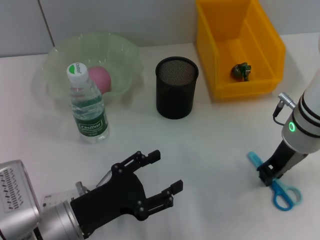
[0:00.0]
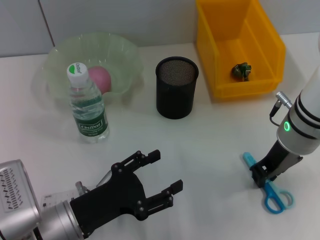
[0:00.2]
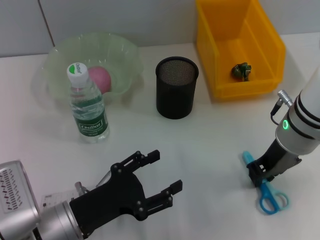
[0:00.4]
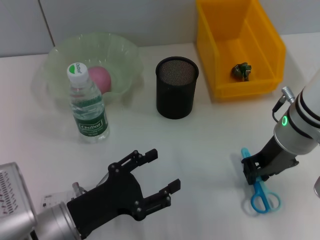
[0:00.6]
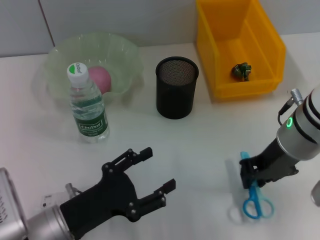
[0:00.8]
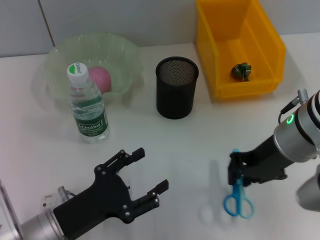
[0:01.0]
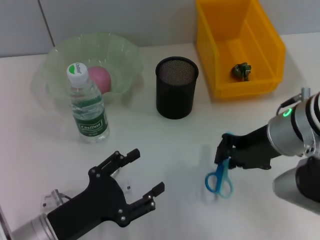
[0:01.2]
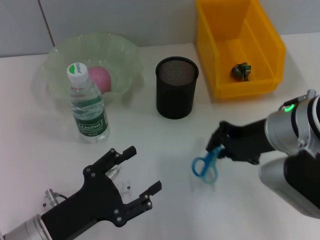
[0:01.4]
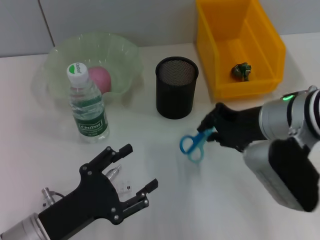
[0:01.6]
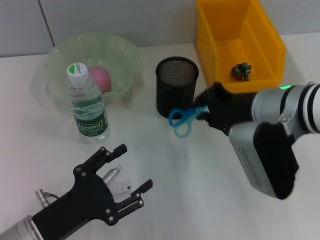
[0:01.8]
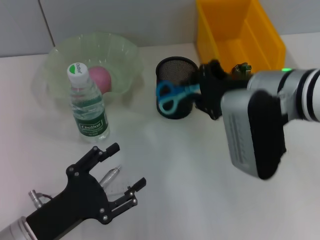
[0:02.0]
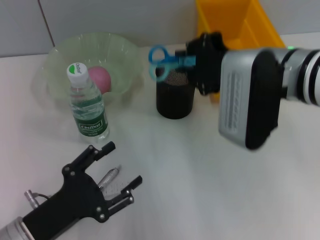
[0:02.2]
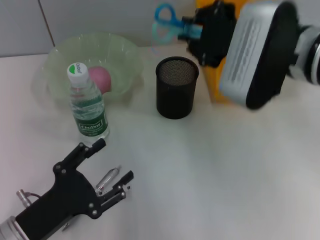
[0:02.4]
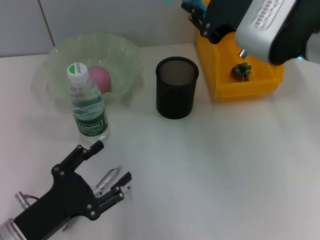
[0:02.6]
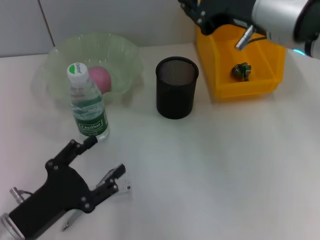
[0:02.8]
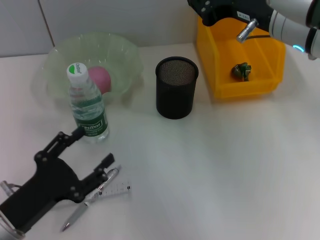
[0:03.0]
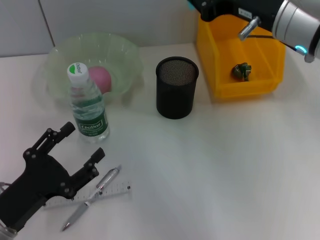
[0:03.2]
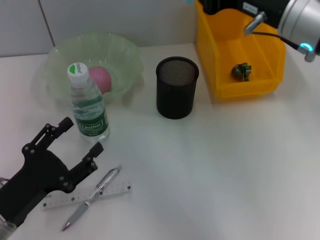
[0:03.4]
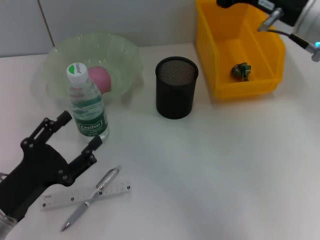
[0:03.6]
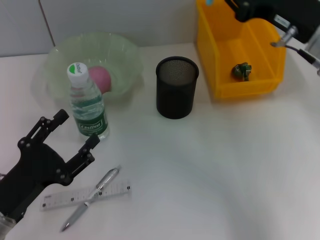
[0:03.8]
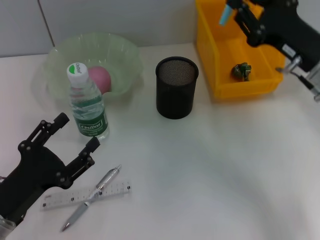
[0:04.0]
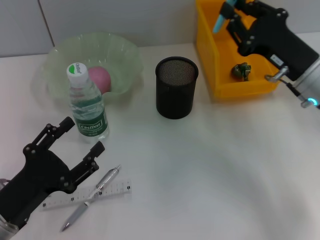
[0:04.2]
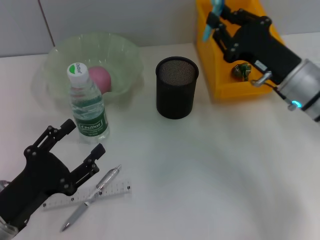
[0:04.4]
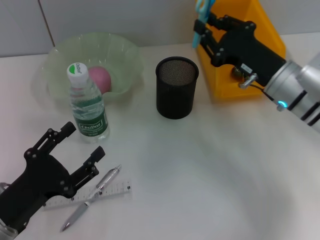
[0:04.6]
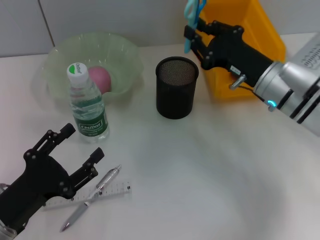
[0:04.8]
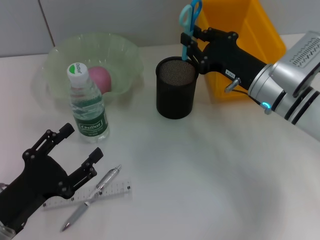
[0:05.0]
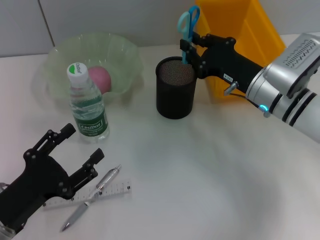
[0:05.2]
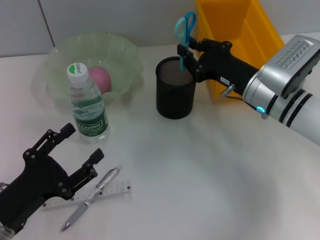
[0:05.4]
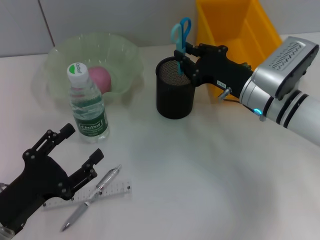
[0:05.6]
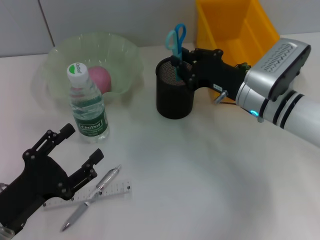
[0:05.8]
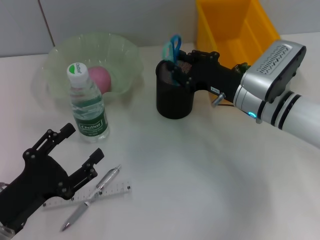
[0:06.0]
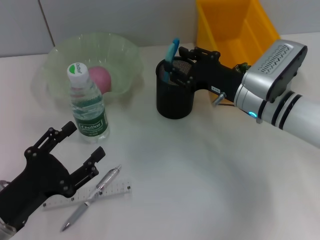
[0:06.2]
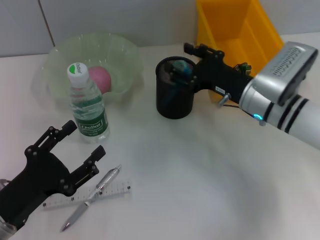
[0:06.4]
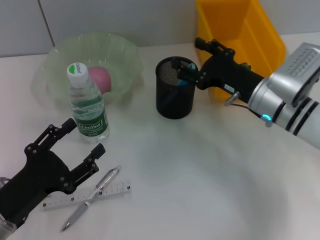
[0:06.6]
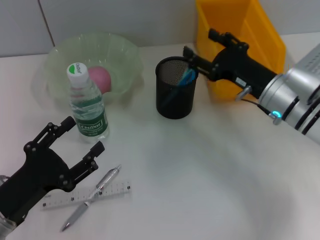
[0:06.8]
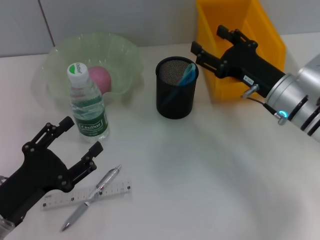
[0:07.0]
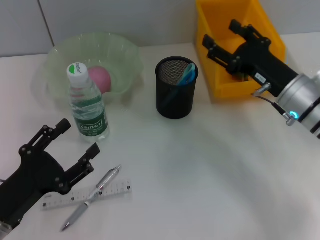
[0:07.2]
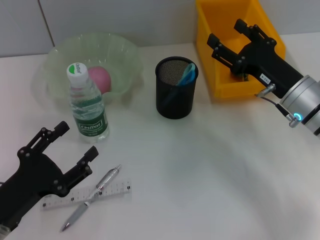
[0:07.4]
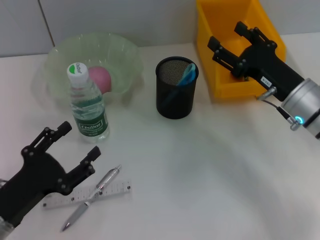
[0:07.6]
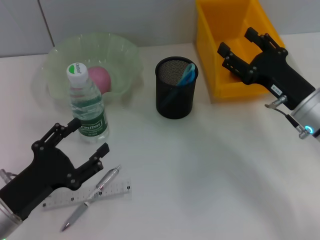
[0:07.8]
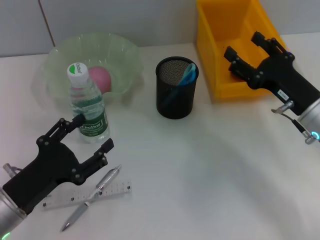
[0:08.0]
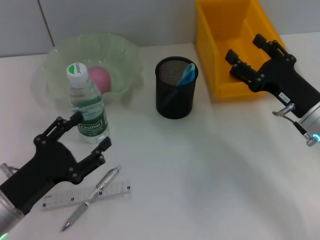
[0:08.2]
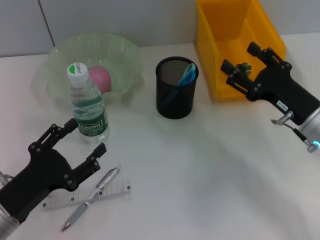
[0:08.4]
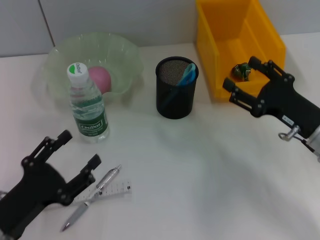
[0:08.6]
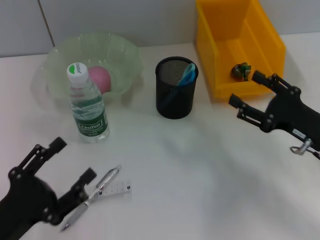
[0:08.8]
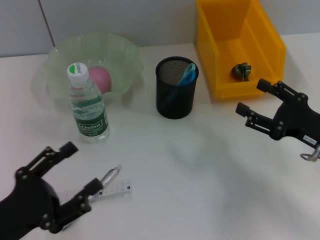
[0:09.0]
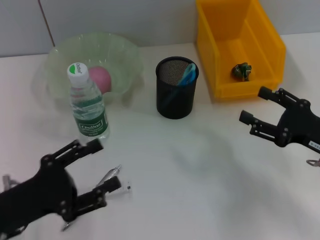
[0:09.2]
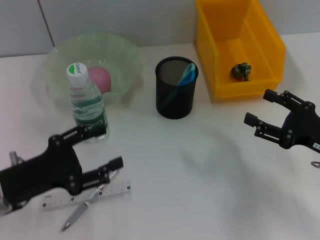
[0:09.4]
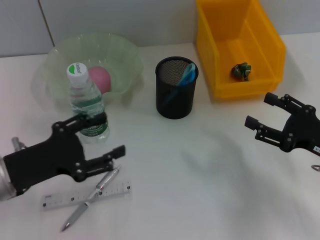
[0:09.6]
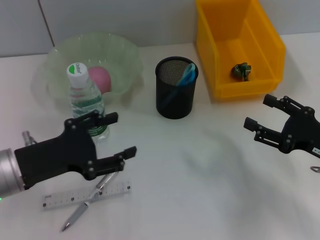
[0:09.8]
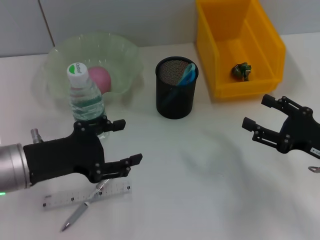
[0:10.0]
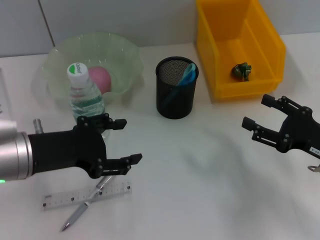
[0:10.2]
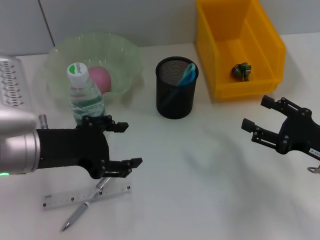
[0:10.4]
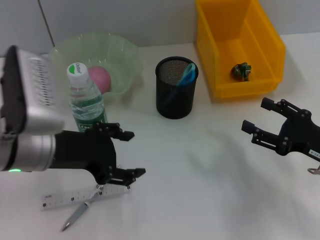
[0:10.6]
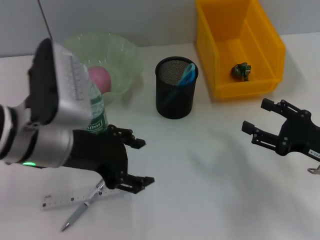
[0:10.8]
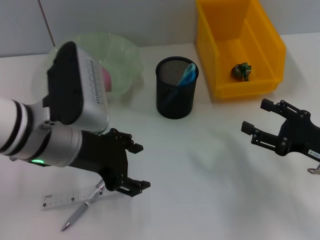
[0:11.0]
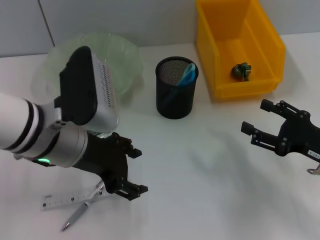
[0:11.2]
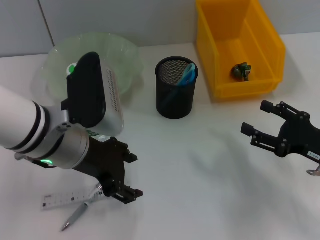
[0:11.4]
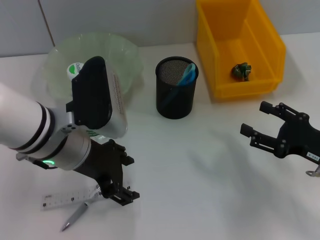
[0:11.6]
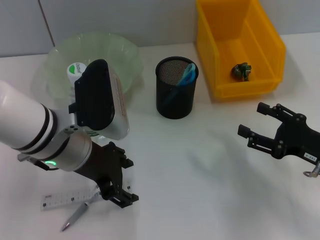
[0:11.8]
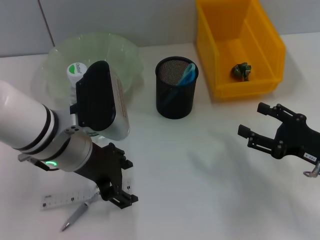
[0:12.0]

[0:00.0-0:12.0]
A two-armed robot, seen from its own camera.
Step, 0:00.0 to 0:06.6: Place the blue scissors into the pen holder with the right hand.
0:01.6 to 0:03.0: The right gripper goes approximately 10 cm upward.
0:03.0 to 0:04.4: The right gripper moves downward and to the right, about 15 cm.
0:04.4 to 0:06.0: The right gripper ends up some 5 cm from where it was.
0:06.0 to 0:07.6: The right gripper travels to the right by roughly 5 cm, and opens up.
0:07.6 to 0:09.0: The right gripper heads backward and to the right, covering about 10 cm.
0:09.0 to 0:10.4: The left gripper shifts approximately 15 cm forward, upward and to the right.
0:10.4 to 0:12.0: The left gripper moves to the right, some 5 cm.

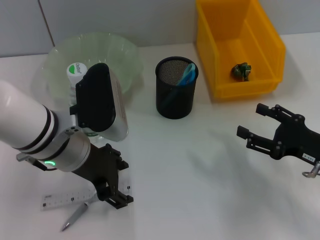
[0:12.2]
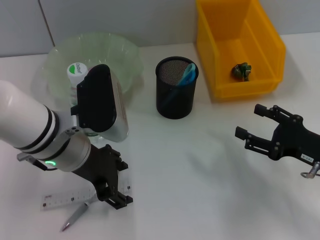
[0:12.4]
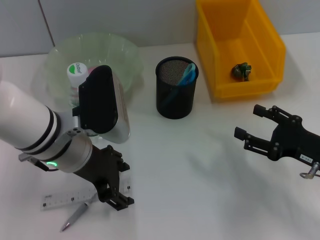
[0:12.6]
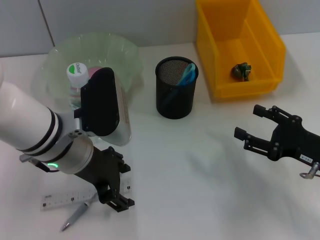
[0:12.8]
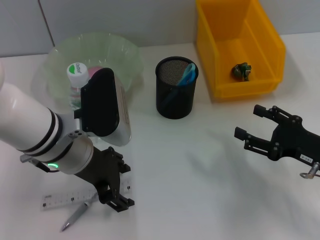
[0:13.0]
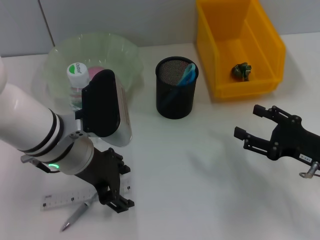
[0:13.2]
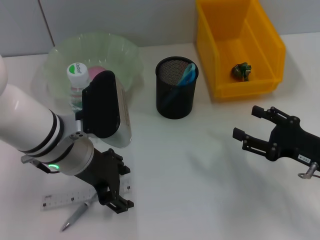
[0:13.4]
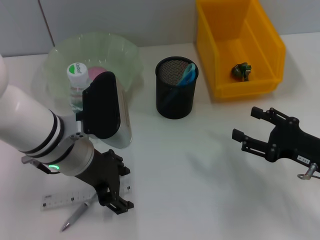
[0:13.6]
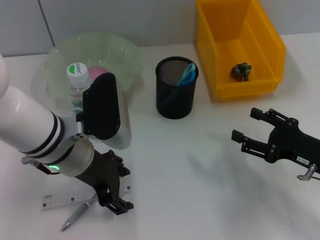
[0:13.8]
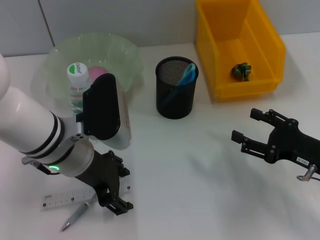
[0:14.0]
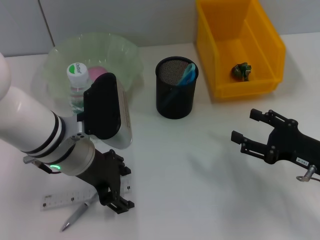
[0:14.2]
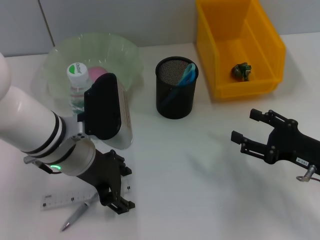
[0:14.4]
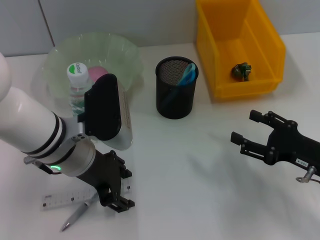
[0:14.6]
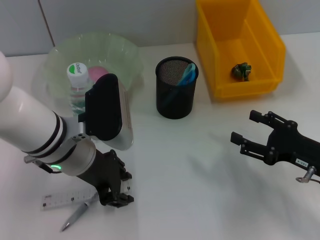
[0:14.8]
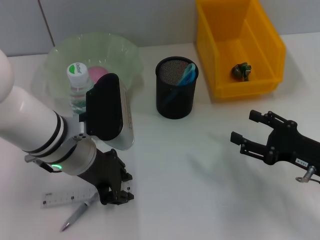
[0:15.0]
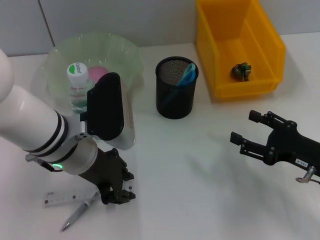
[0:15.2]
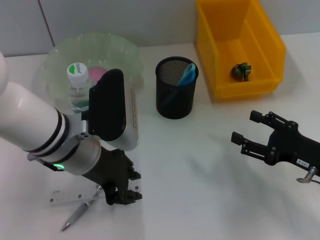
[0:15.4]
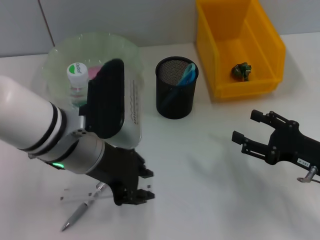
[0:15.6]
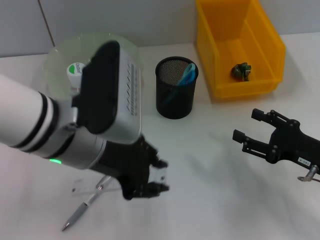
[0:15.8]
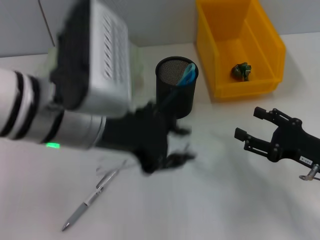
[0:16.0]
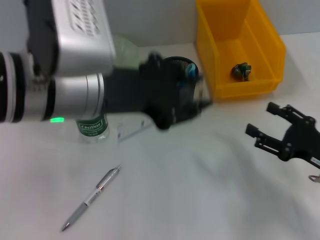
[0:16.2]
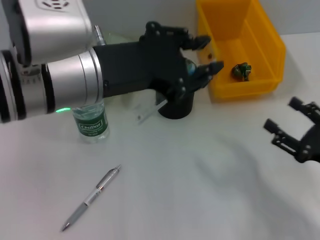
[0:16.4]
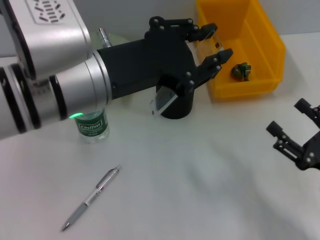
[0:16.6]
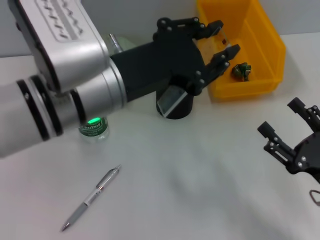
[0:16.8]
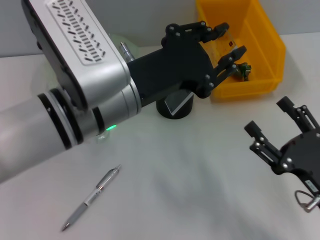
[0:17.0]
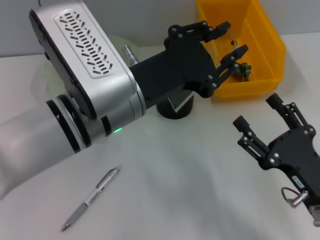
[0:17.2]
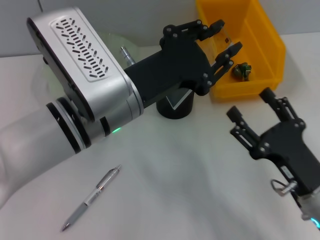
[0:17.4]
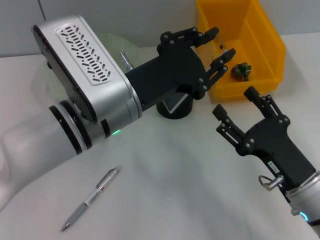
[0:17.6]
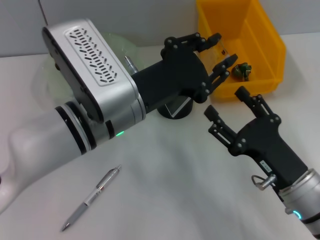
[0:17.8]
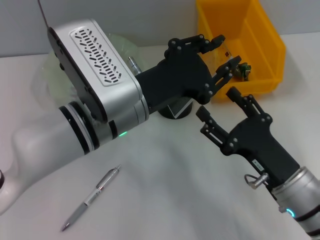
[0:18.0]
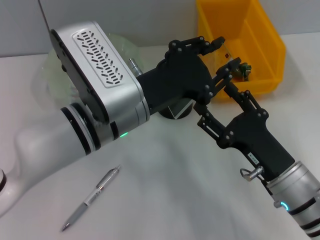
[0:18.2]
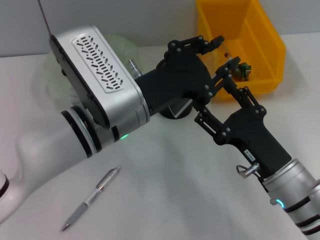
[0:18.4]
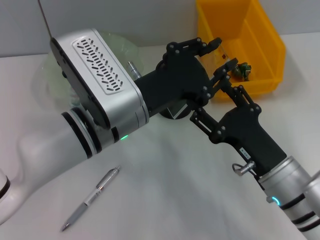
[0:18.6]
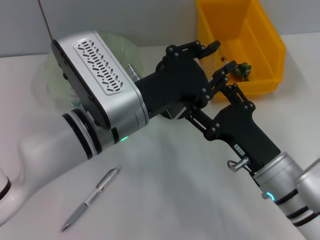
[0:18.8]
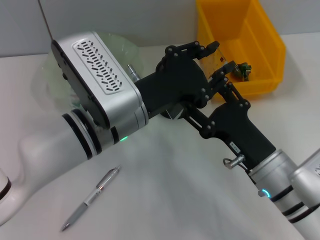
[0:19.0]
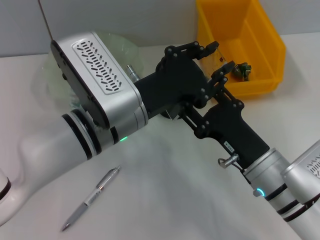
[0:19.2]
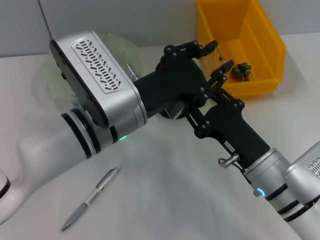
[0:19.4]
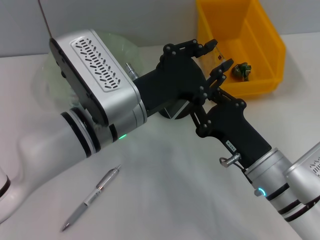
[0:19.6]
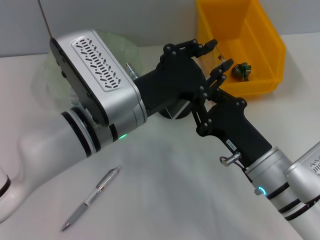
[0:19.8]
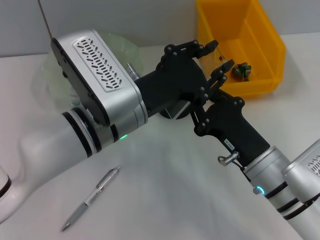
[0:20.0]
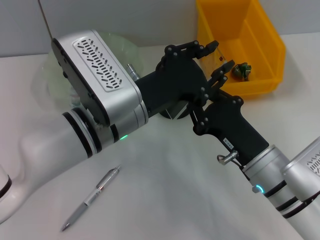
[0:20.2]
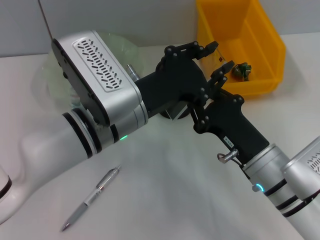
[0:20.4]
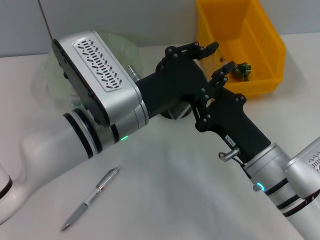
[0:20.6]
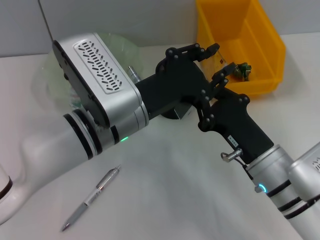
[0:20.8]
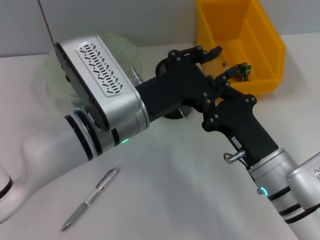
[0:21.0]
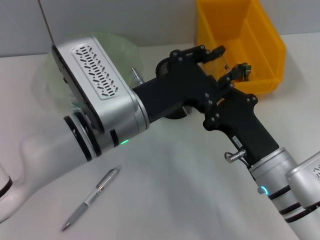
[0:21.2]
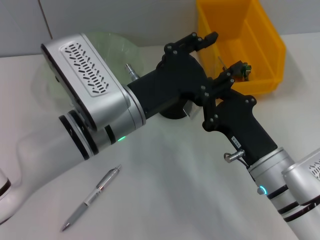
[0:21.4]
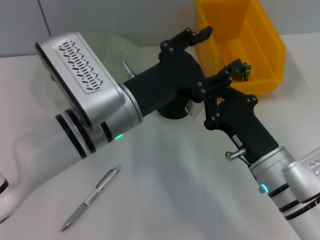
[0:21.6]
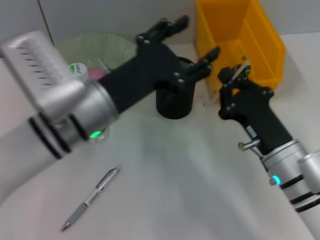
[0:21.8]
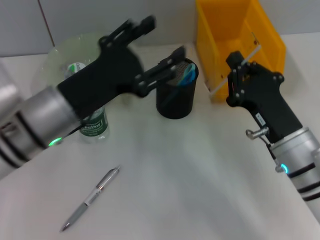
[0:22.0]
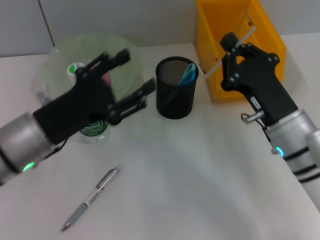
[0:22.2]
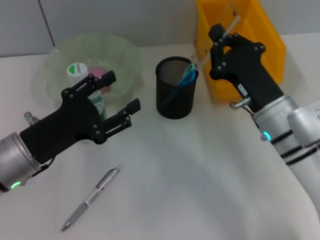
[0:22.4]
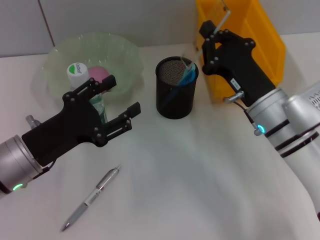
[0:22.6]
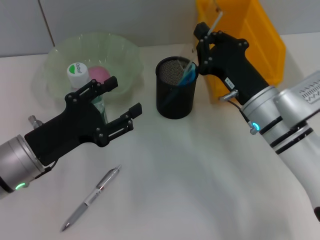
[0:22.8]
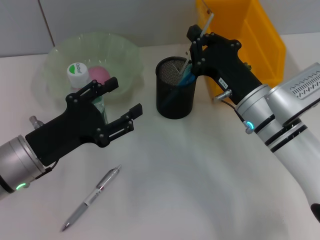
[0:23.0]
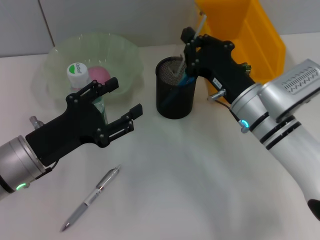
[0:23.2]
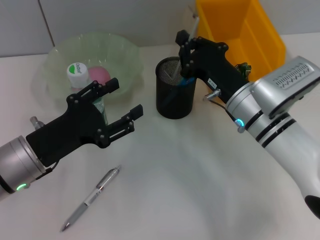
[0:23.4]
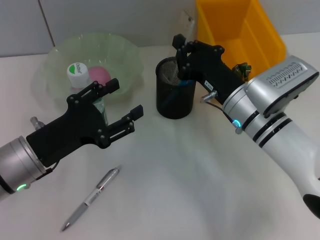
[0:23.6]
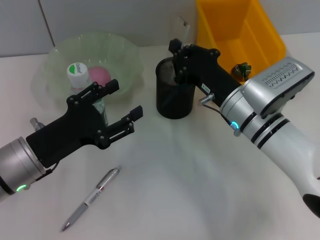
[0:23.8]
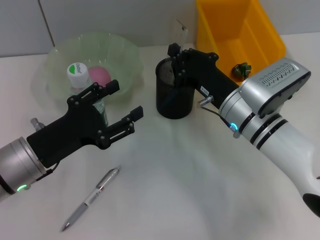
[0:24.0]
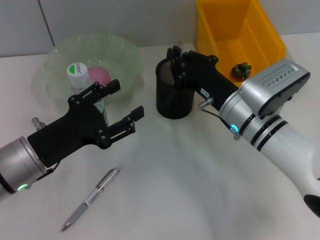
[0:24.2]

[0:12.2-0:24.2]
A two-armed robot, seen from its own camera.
Step, 0:12.2 to 0:14.8: Grab the ruler with the left hand.
Step, 0:15.0 to 0:21.6: Pass the ruler from the left hand to the right hand.
0:12.2 to 0:13.8: The two grippers keep their place.
0:13.8 to 0:15.2: The left gripper closes its fingers.
0:15.2 to 0:16.6: The right gripper is displaced backward by roughly 5 cm. Meanwhile the left gripper heads upward, covering roughly 10 cm.
0:16.6 to 0:18.2: The left gripper goes approximately 5 cm downward. Meanwhile the right gripper travels to the left by about 10 cm.
0:18.2 to 0:19.8: The right gripper closes.
0:19.8 to 0:21.2: There are only small adjustments of the grippers.
0:21.2 to 0:22.6: The left gripper is displaced to the left by about 15 cm, and opens its fingers, while the right gripper moves forward, some 10 cm.
0:22.6 to 0:24.2: The grippers make only small movements.
